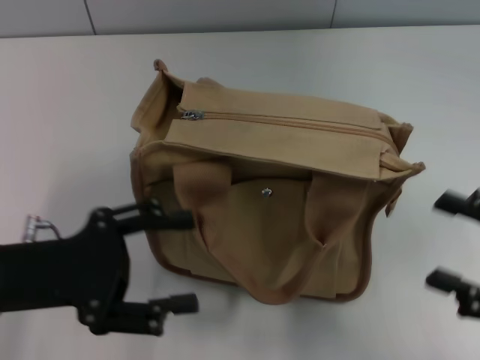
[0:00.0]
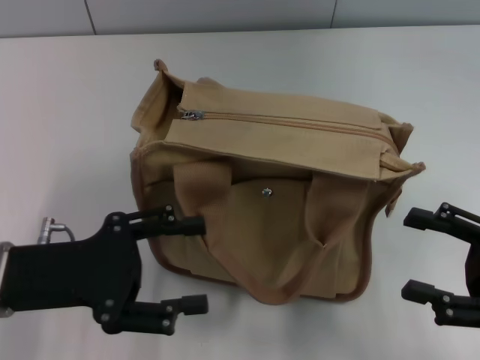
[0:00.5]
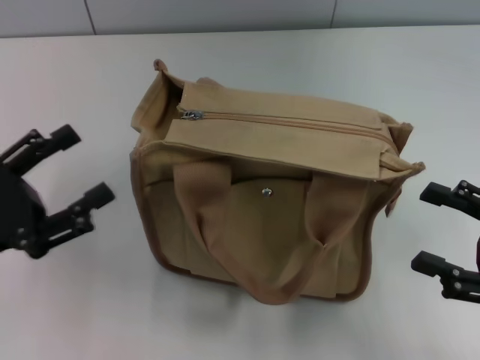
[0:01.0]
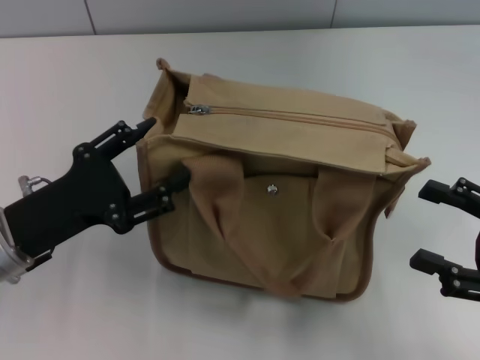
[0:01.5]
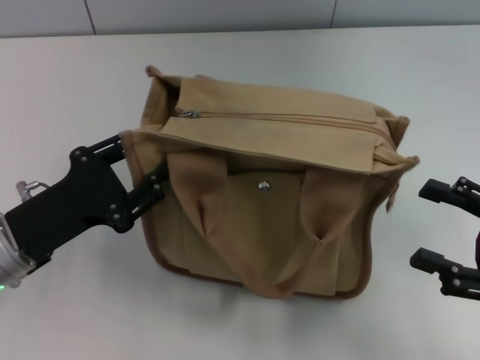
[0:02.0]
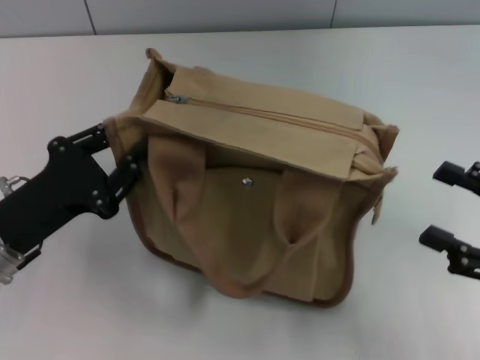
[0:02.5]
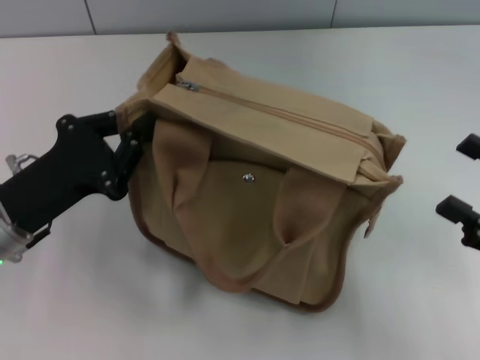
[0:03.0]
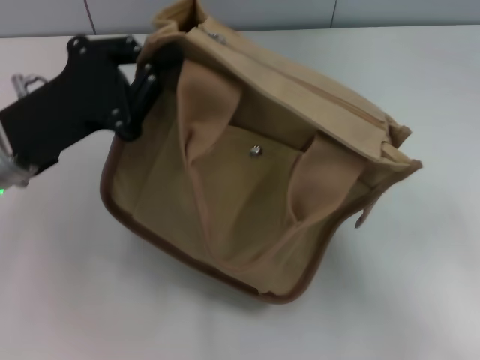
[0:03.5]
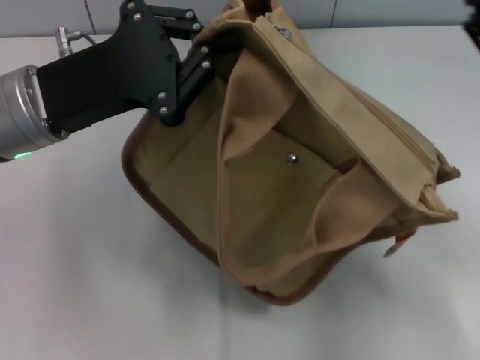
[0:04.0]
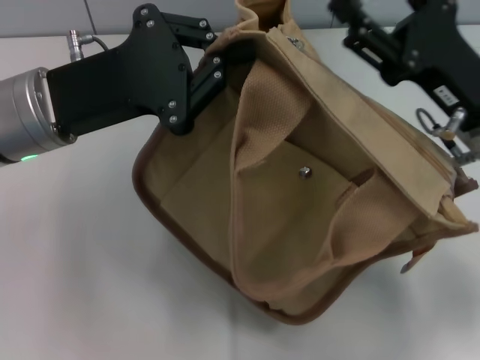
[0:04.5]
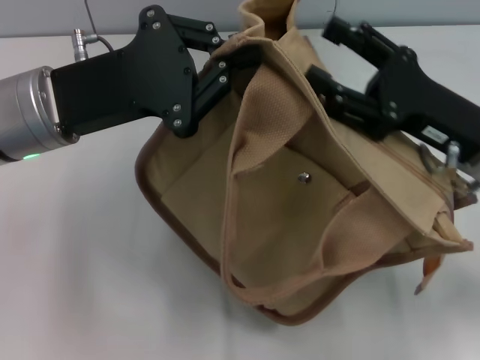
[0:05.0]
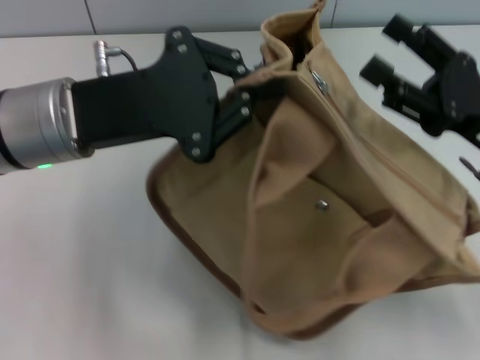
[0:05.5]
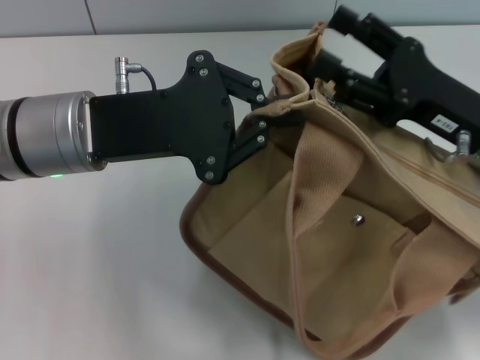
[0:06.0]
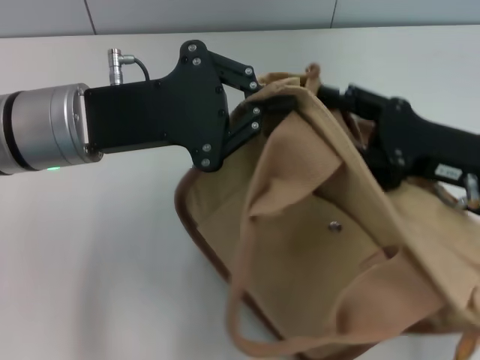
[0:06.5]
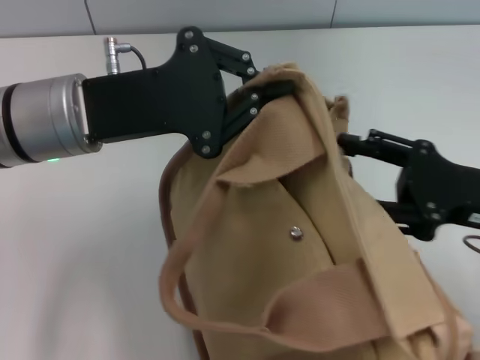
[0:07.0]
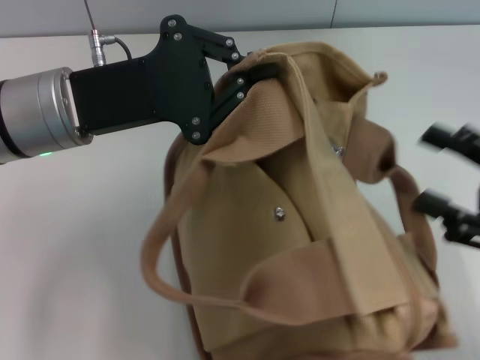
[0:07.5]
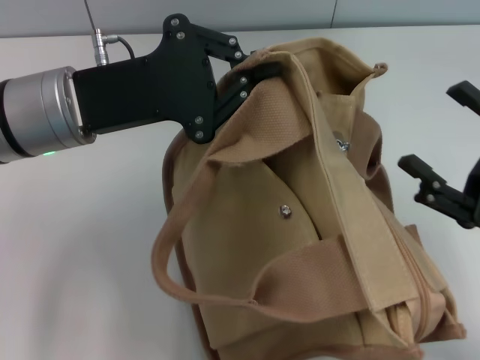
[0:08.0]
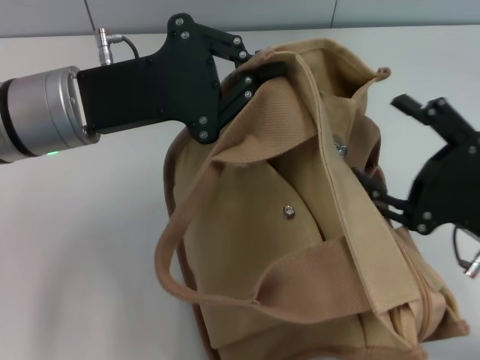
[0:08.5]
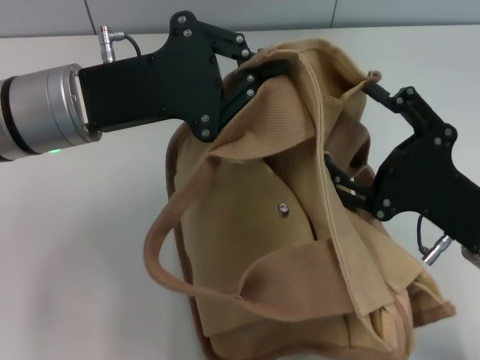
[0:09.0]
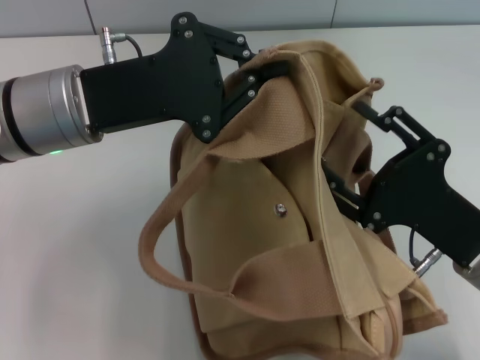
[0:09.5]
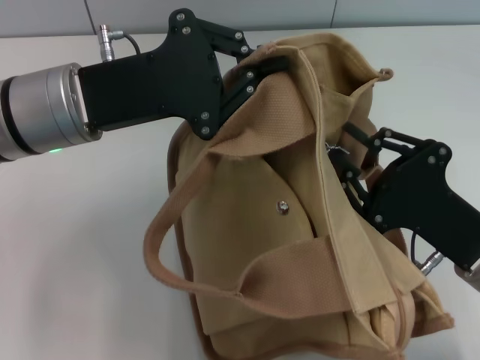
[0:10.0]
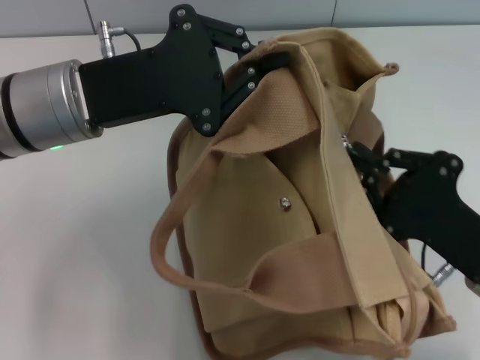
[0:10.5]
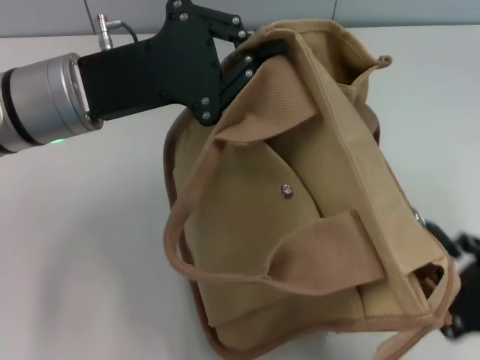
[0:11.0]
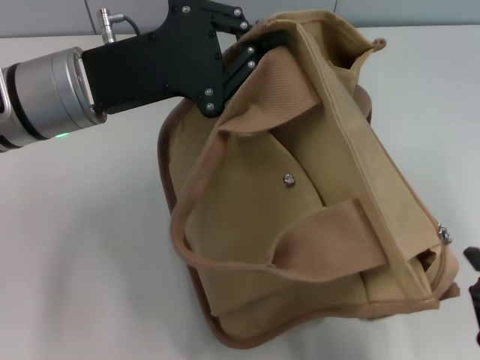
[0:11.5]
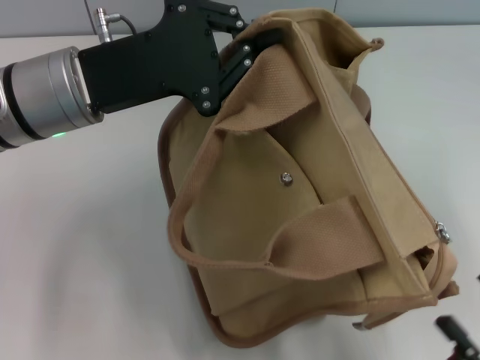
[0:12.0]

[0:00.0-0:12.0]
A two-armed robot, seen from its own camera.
Step, 0:00.0 to 0:11.5: Pull open the zipper with your right hand.
0:02.0 to 0:04.0: The left gripper heads upward and forward, covering approximately 15 cm, and closes its fingers; the right gripper travels forward and to the left by approximately 10 cm.
0:06.0 to 0:08.0: The right gripper goes about 10 cm backward and to the right.
0:08.0 to 0:10.0: The right gripper goes roughly 5 cm to the left, and closes up.
0:10.0 to 0:12.0: The right gripper travels backward by roughly 15 cm, and closes, then opens again.

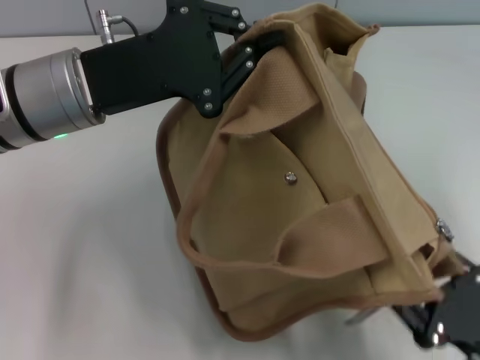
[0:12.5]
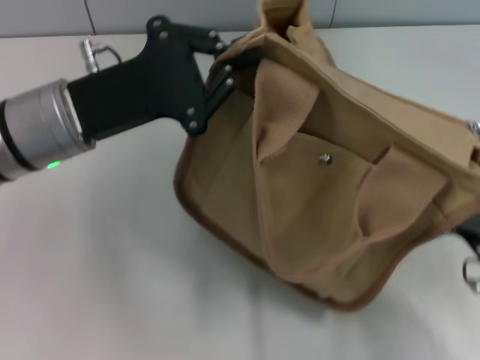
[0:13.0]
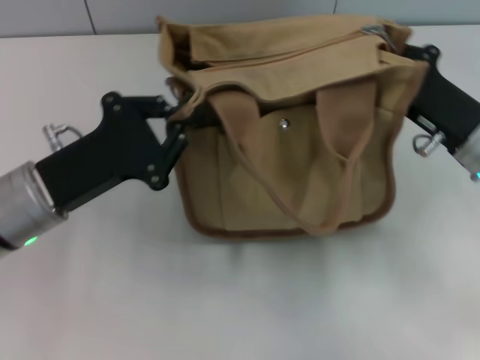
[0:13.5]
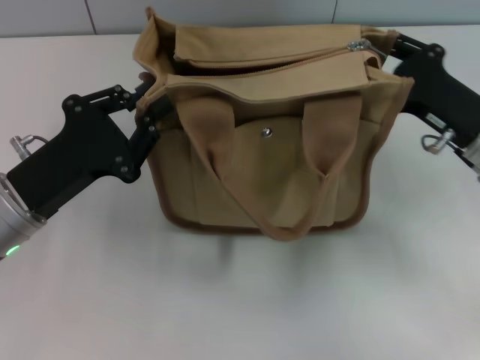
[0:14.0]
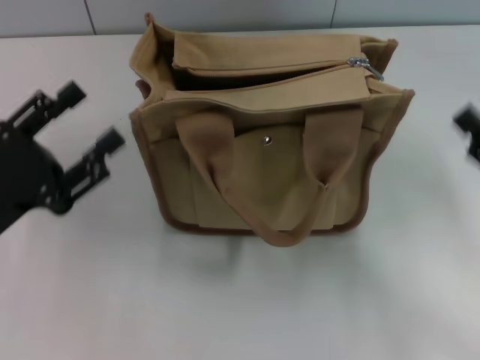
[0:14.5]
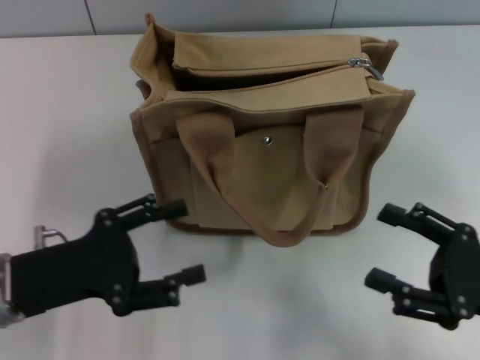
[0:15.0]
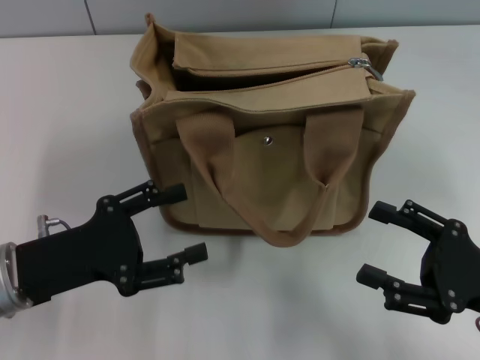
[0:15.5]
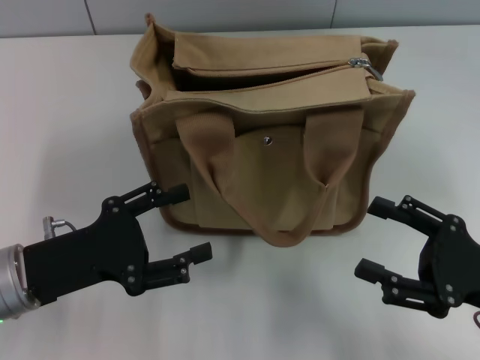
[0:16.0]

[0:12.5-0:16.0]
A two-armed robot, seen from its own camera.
Step, 0:12.5 to 0:14.5: Grab the bag with your left hand.
0:12.5 to 0:14.5: The right gripper shifts some 15 cm forward, upward and to the right, and closes, then reopens. Meanwhile the left gripper is displaced backward, to the left and downward by roughly 15 cm, and opens.
0:14.5 to 0:16.0: The left gripper opens up.
